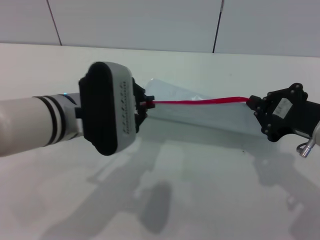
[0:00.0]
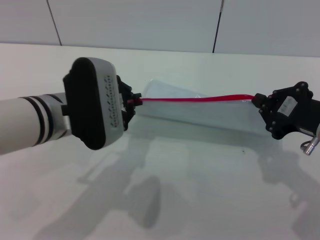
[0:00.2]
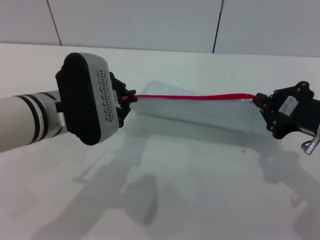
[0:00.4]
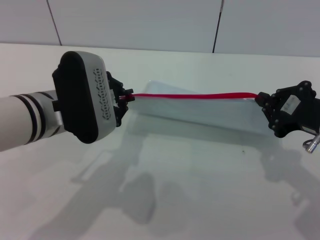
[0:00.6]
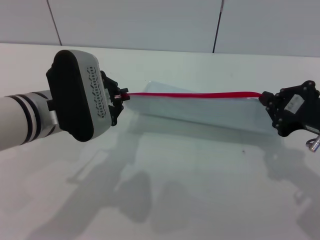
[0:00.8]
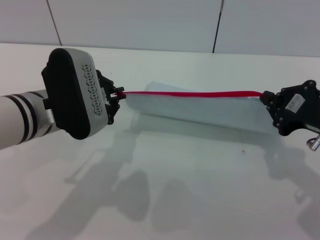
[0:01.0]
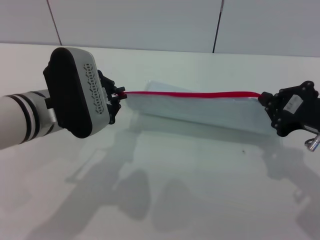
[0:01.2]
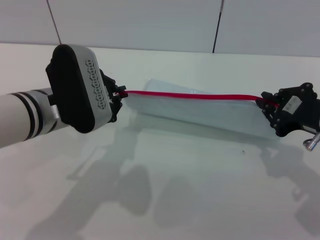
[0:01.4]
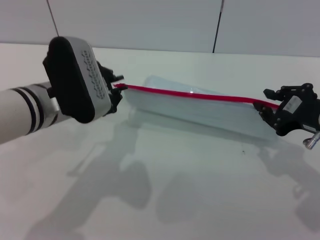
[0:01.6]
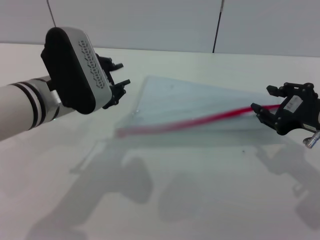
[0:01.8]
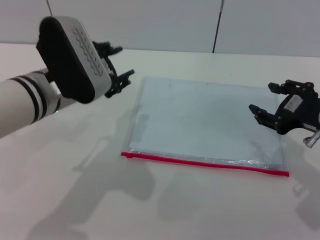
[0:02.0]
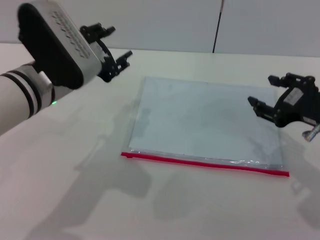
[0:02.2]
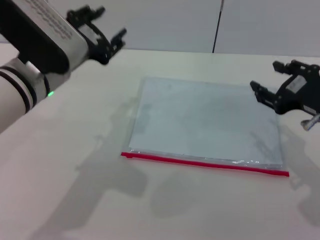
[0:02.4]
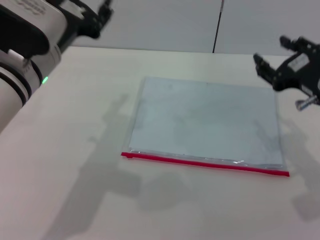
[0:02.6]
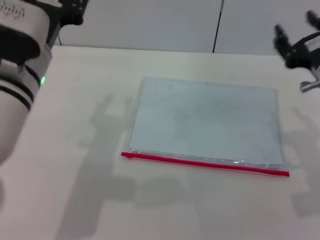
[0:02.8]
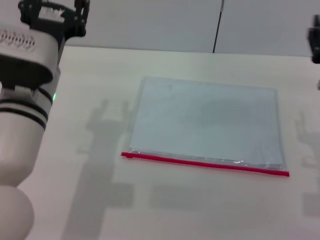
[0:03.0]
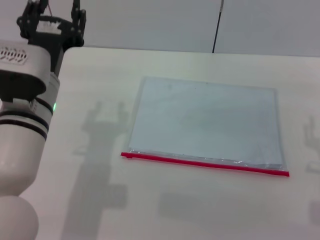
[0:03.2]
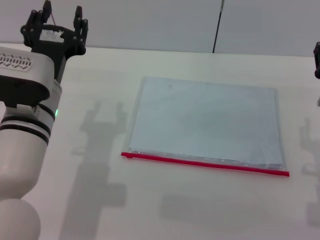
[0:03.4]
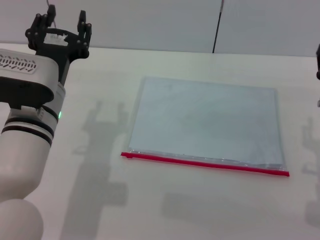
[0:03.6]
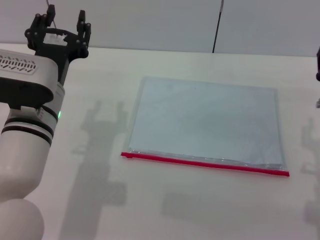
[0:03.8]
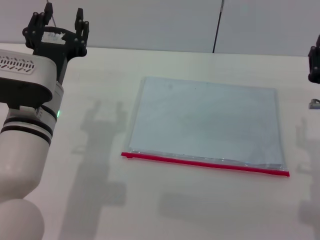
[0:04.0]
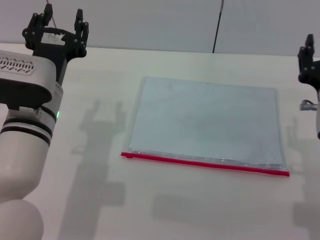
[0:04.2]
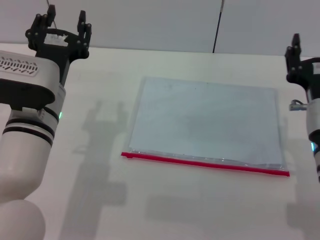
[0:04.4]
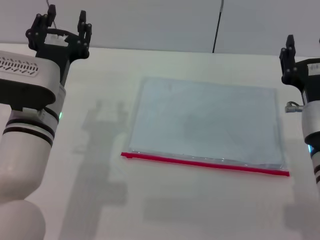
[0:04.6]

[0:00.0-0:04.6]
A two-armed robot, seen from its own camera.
Step, 0:01.6 to 0:03.6: Place the transparent plastic bag.
0:01.6 to 0:03.0: The left gripper opens its fingers, while the right gripper opens its fingers.
0:03.0 to 0:04.6: The right gripper moves roughly 5 cm.
